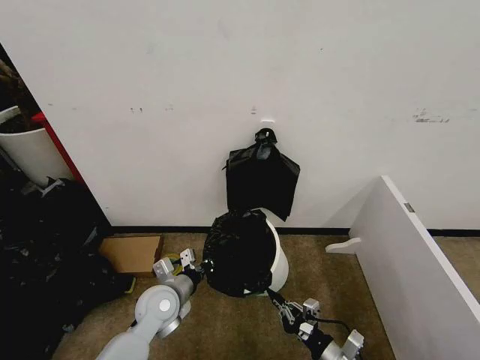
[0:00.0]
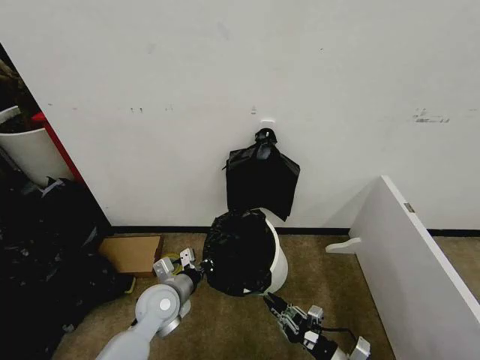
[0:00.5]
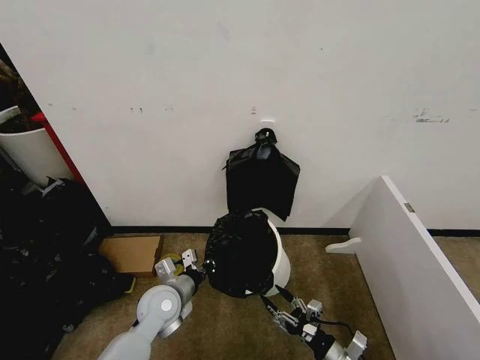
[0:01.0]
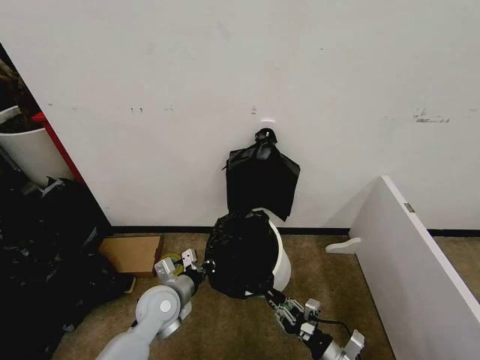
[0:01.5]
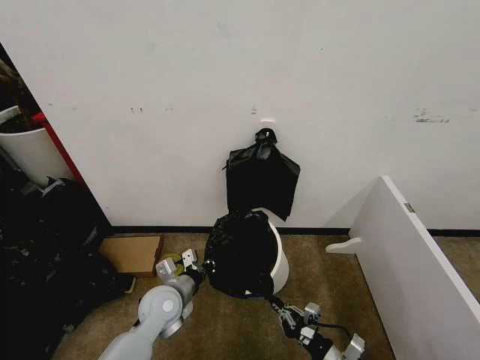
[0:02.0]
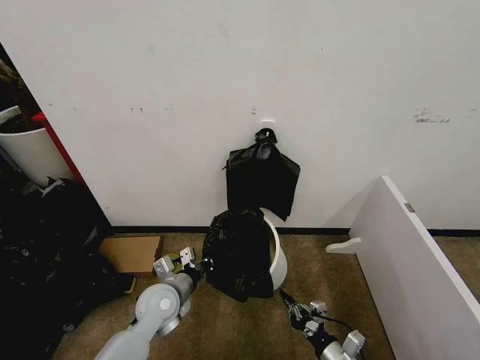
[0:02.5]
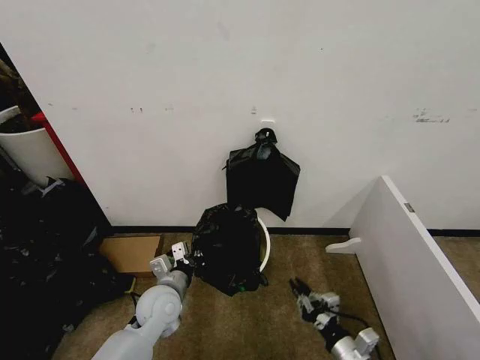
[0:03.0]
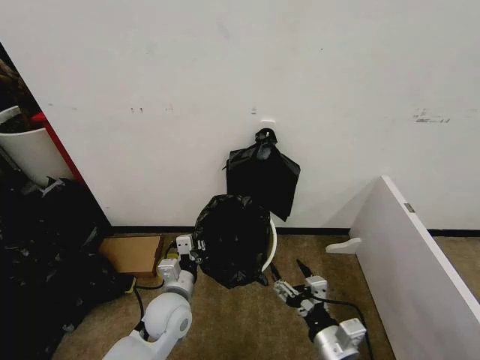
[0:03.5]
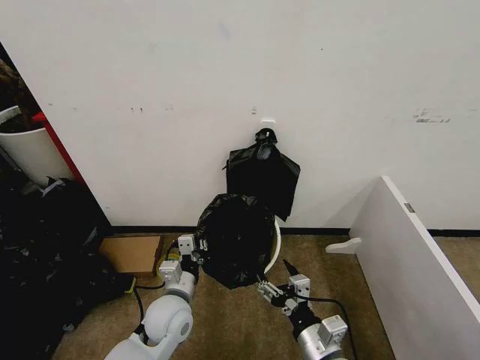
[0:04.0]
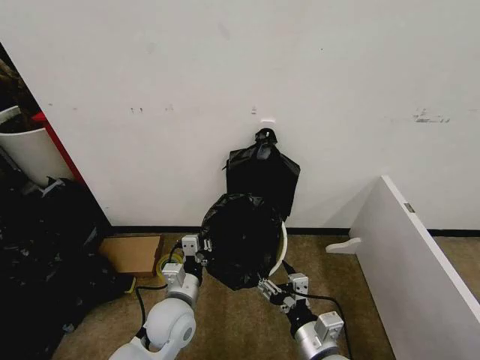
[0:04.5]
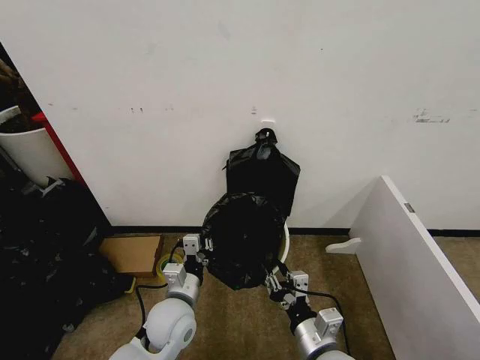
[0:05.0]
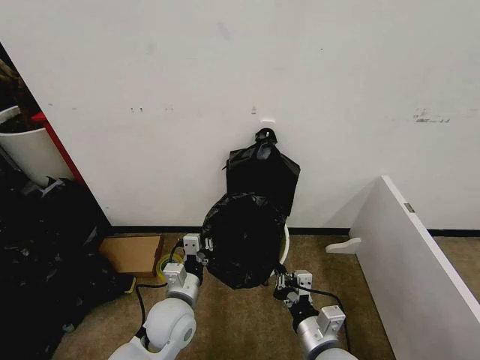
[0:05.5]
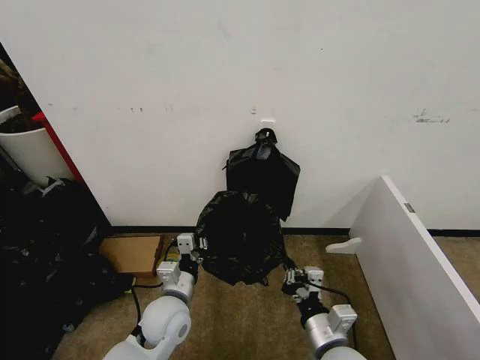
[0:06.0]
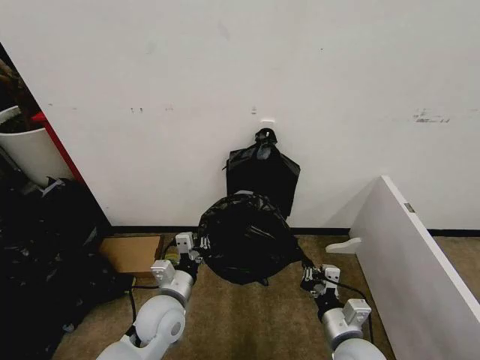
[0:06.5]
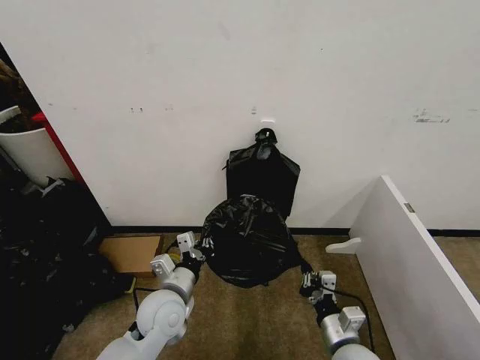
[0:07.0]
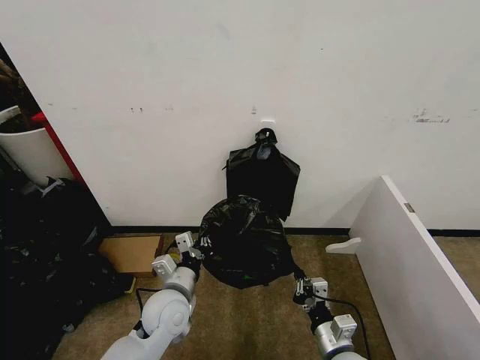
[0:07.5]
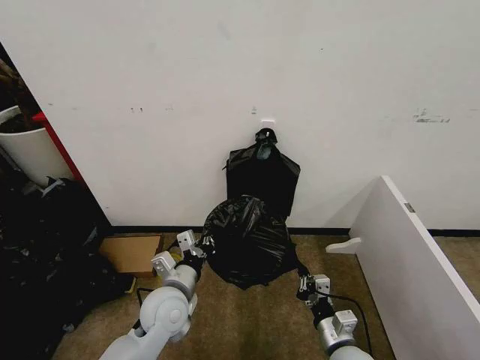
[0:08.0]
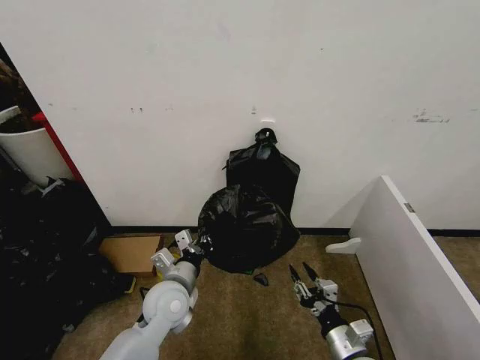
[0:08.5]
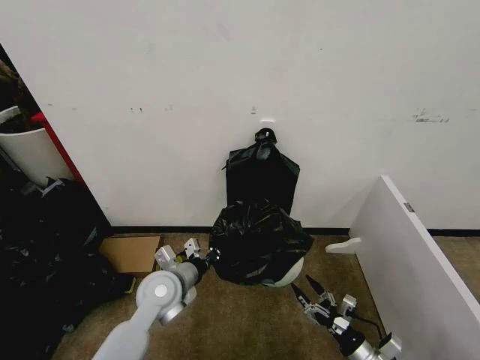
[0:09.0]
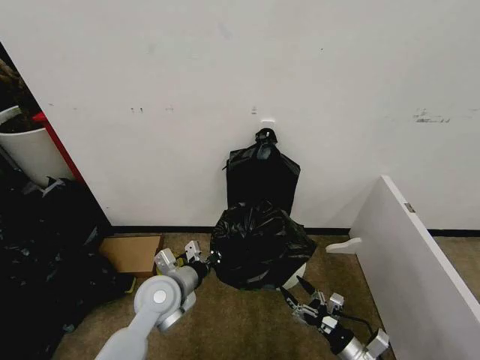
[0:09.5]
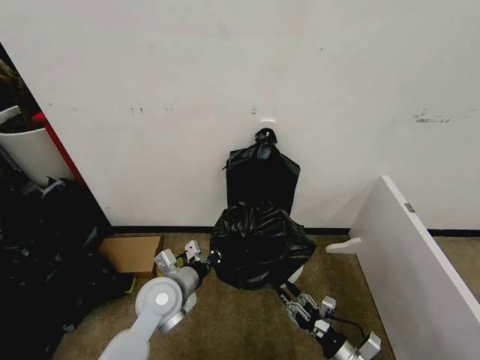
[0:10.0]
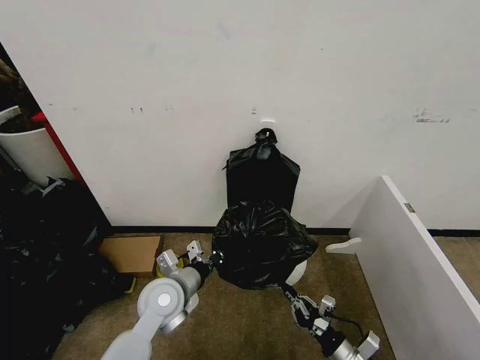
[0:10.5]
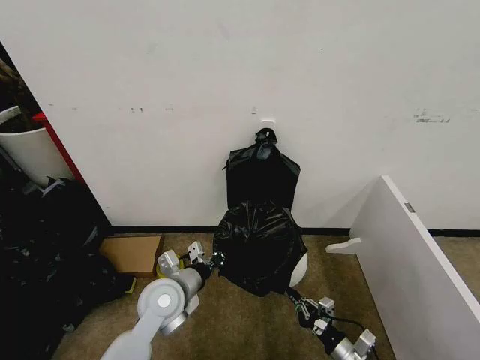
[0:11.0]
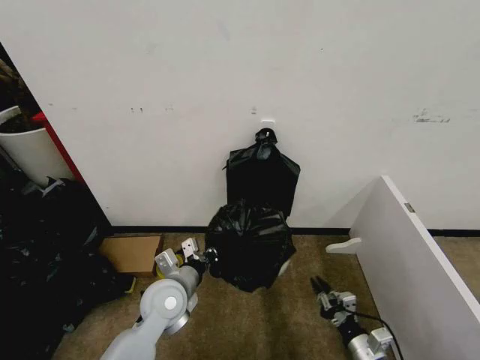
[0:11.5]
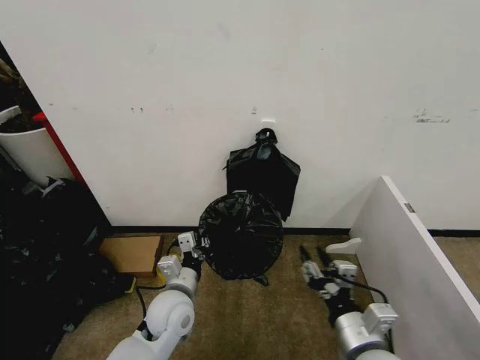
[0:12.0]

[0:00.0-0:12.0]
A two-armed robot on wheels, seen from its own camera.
Task of the whole recording: Place the garbage bag over the trash bin.
0.0 to 2.0 s: The right gripper opens and closes again.
2.0 to 4.0 s: The right gripper moves upward and to the left, some 15 cm, and opens its fingers.
4.0 to 6.0 s: The right gripper closes up.
6.0 to 8.0 s: The right gripper moves downward, some 10 cm.
8.0 to 10.0 s: The right gripper shifts about 5 cm to the right, and opens up.
10.0 to 12.0 s: The right gripper shifts roughly 20 cm upward, and closes, then reopens.

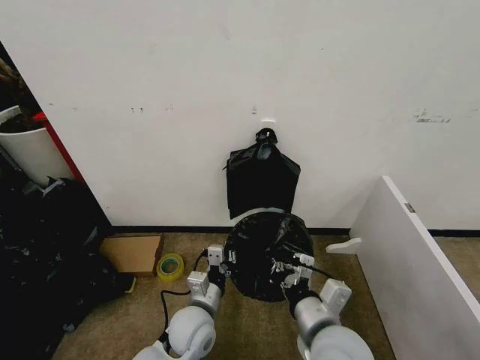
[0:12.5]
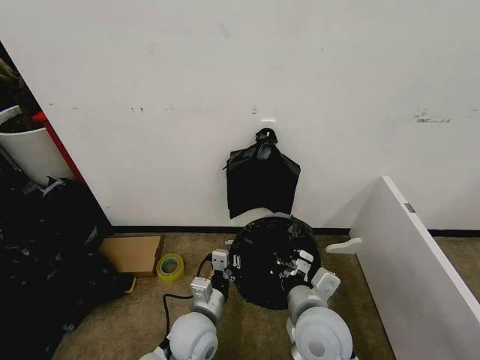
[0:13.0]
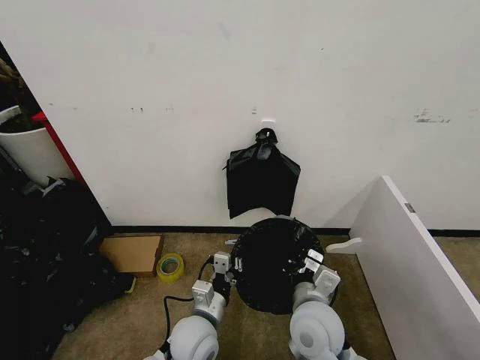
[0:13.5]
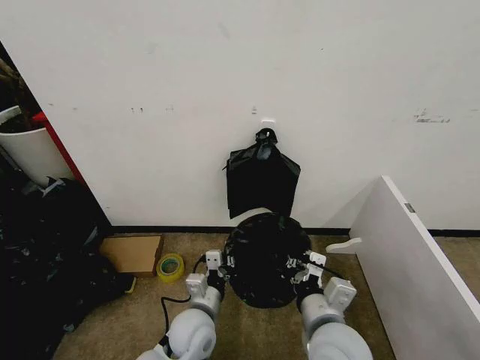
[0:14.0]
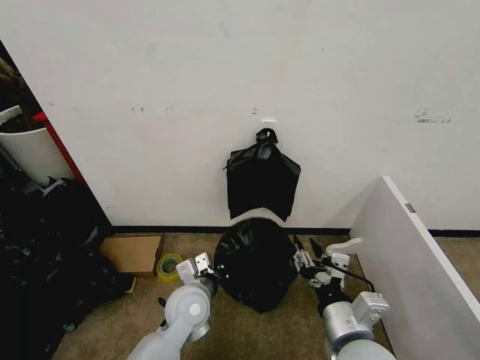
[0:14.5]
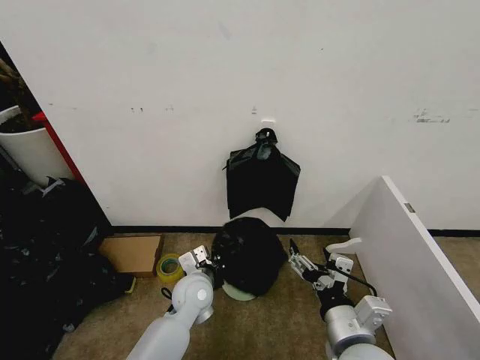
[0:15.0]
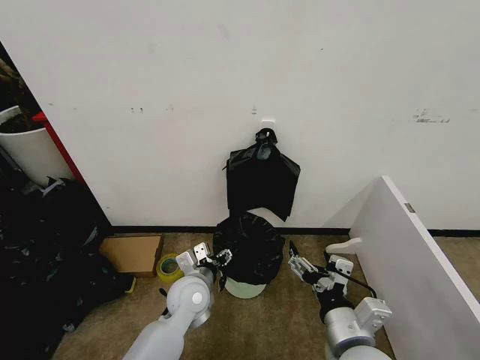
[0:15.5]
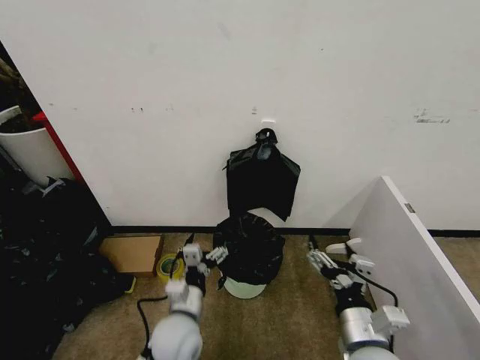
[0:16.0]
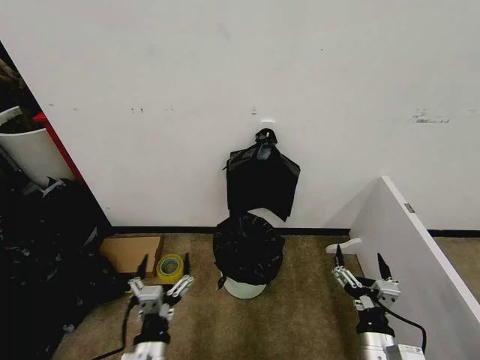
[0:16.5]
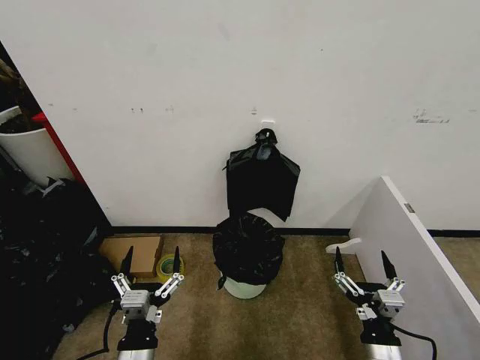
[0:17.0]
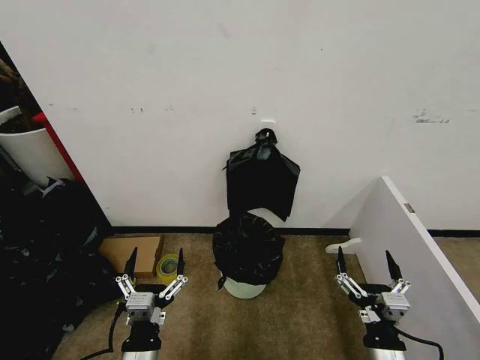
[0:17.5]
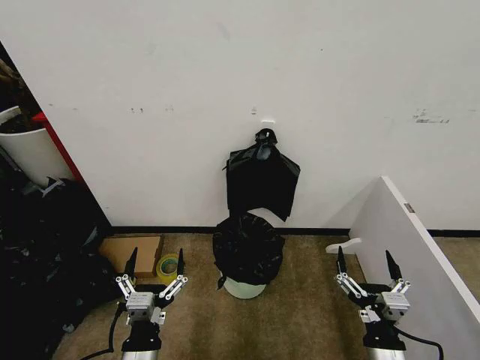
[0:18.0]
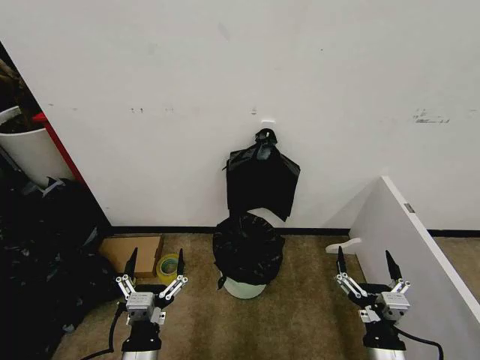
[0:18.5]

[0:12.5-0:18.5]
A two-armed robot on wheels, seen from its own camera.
Task of the whole recording: Place the garbage bag over the trash bin.
12.5 to 14.5 s: The right gripper opens its fingers.
14.5 to 16.5 s: The left gripper moves backward, roughly 15 cm, and opens up. The right gripper goes roughly 10 cm downward and to the right, and opens.
16.5 to 18.5 s: The grippers move only a little.

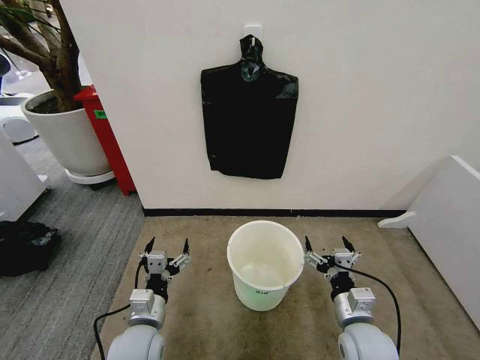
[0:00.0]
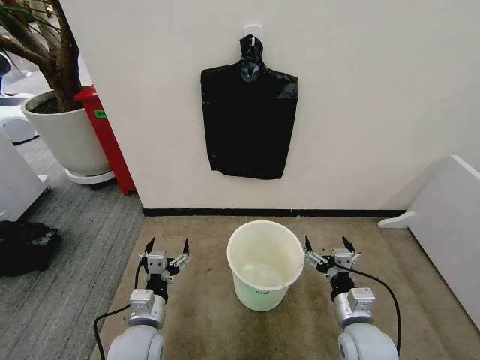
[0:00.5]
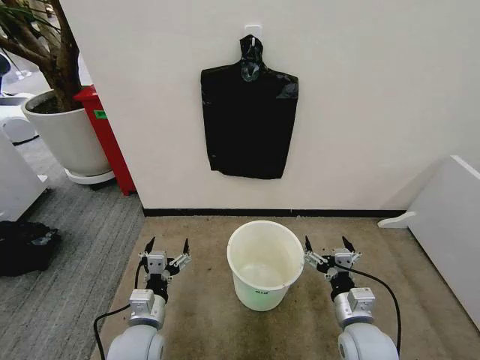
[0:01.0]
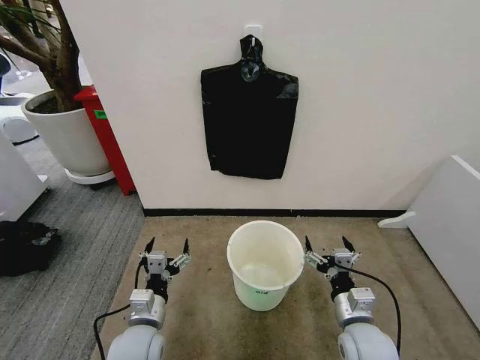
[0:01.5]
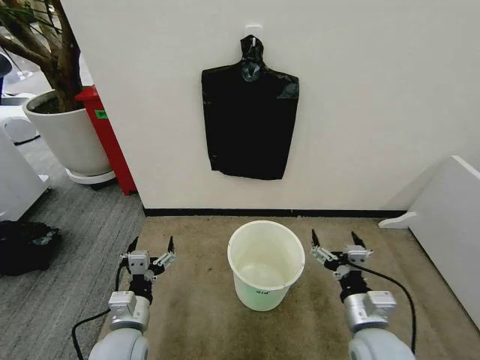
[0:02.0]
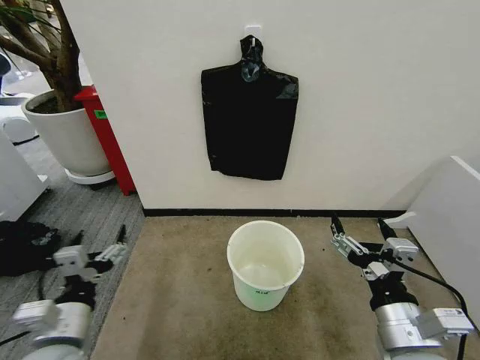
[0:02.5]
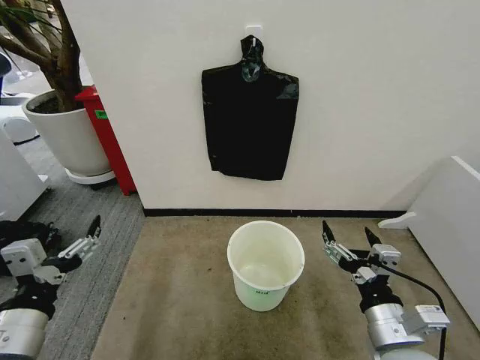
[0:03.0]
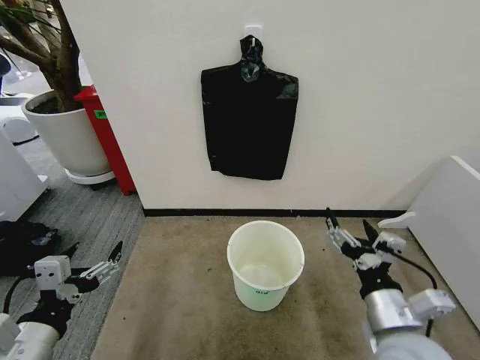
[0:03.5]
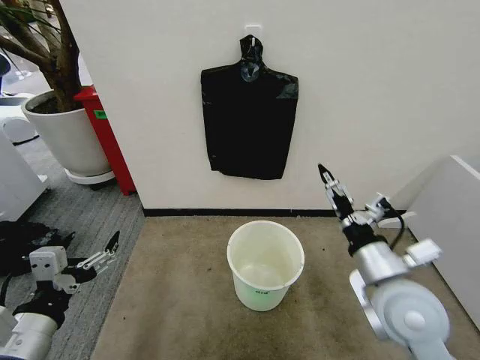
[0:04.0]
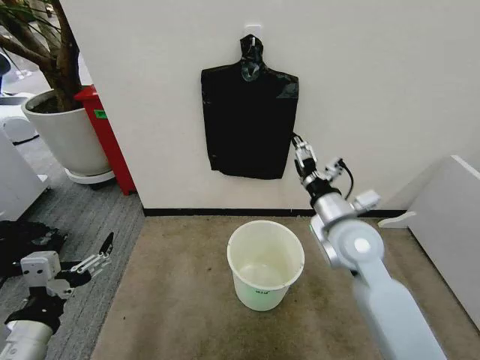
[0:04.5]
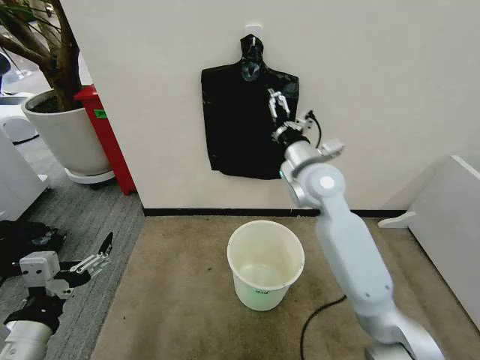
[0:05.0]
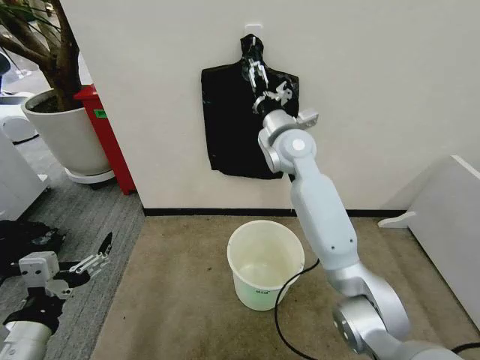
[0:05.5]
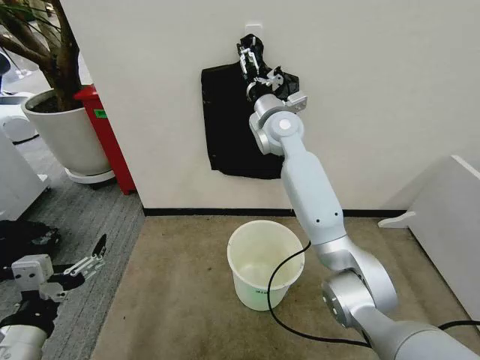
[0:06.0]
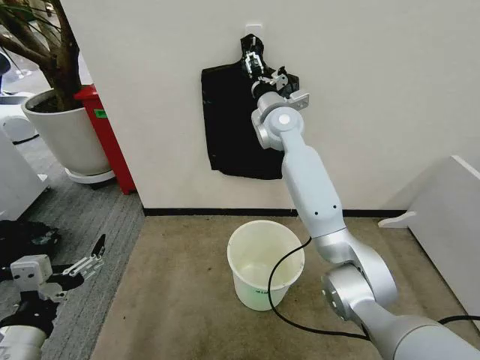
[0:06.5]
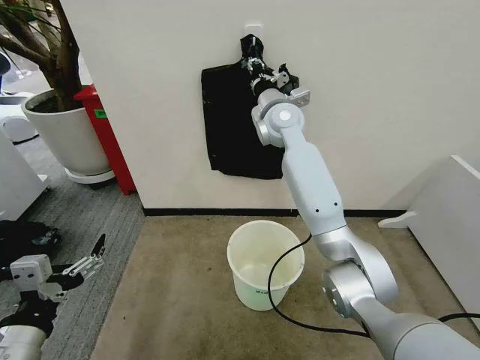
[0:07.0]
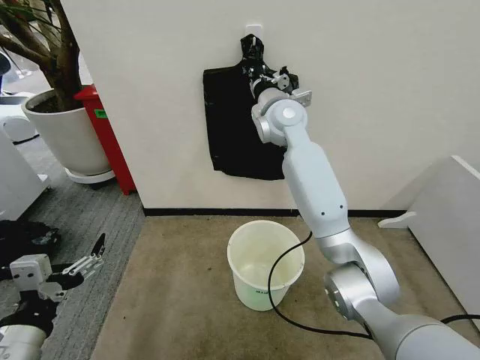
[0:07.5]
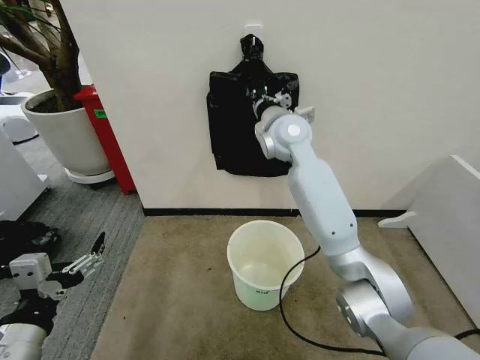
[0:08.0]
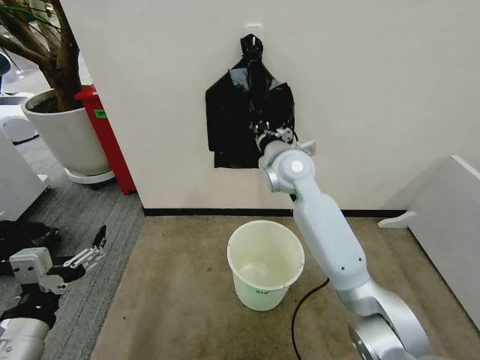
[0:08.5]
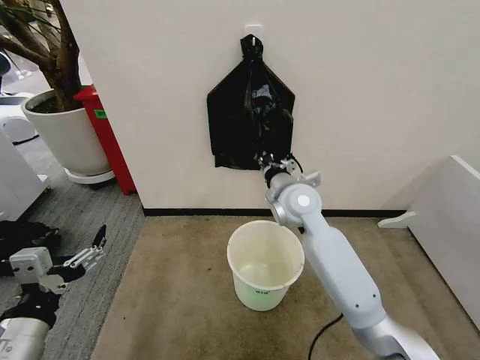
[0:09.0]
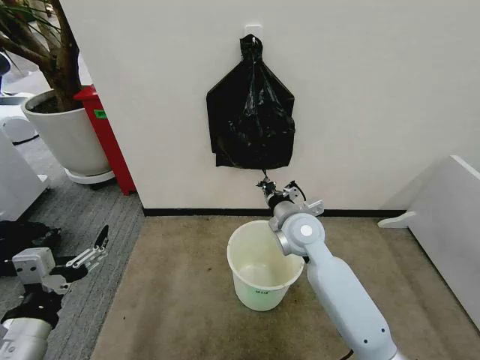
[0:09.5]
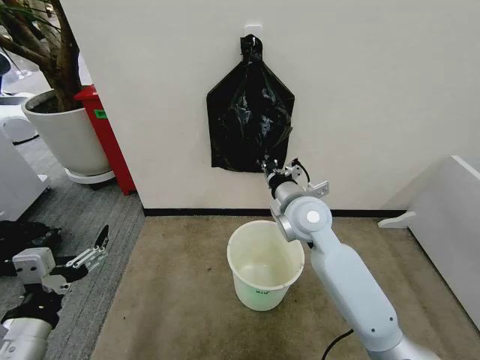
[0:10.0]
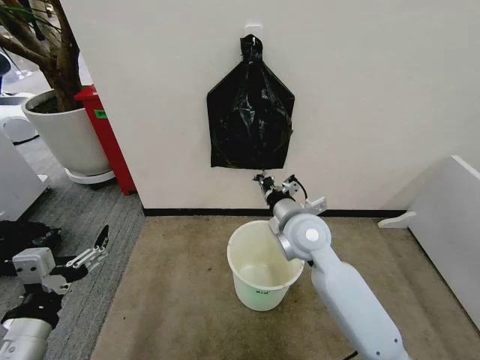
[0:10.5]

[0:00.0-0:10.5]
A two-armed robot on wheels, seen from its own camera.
Task of the whole recording: Place the garbage bag over the trash bin.
2.0 to 4.0 s: The right gripper shifts some 10 cm upward, while the left gripper shifts about 20 cm upward, to the left and backward.
4.0 to 6.5 s: The right gripper heads forward and to the left, covering some 40 cm.
6.5 to 8.5 s: The right gripper moves backward and downward, roughly 10 cm, and closes its fingers.
8.5 to 10.5 s: The right gripper shifts some 15 cm backward and downward.
